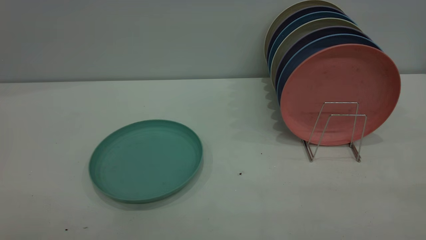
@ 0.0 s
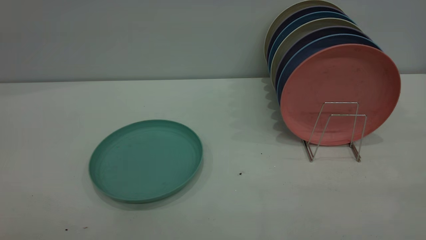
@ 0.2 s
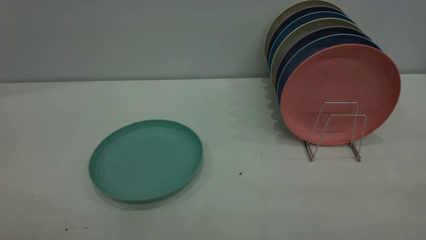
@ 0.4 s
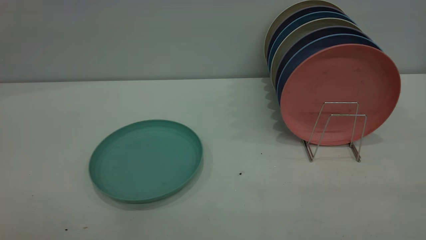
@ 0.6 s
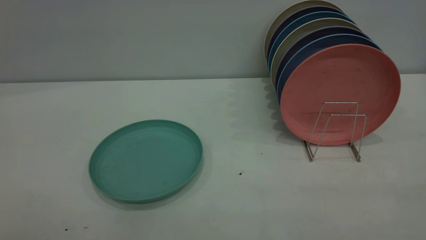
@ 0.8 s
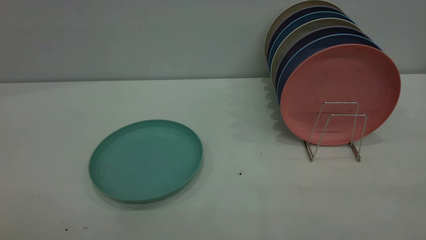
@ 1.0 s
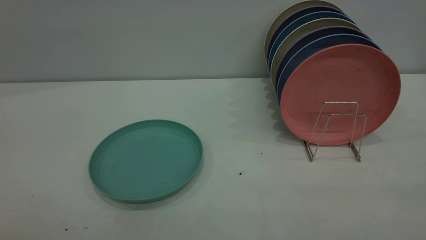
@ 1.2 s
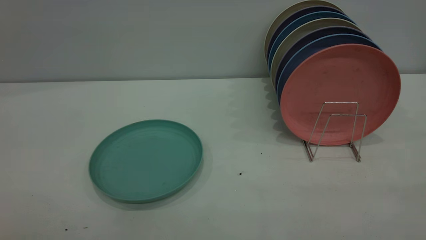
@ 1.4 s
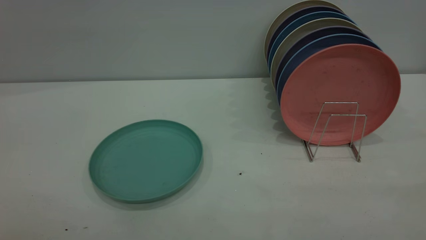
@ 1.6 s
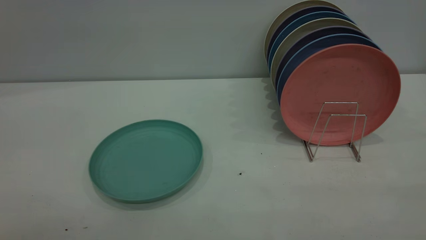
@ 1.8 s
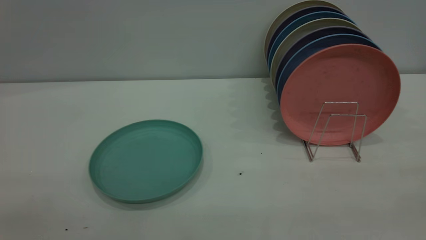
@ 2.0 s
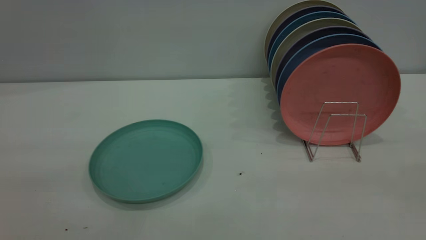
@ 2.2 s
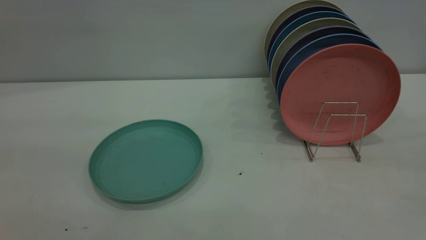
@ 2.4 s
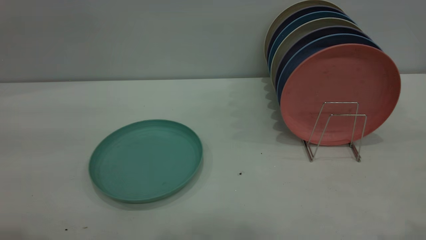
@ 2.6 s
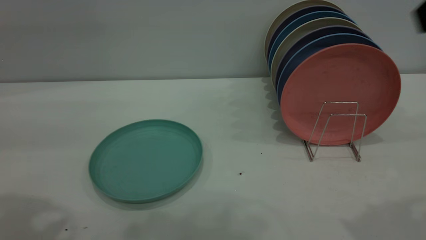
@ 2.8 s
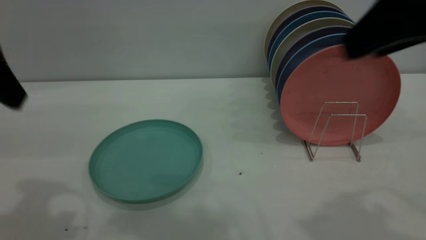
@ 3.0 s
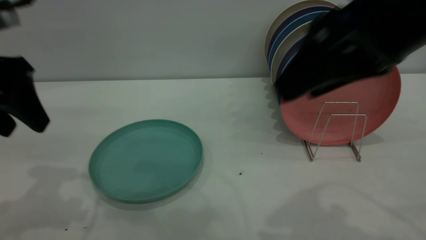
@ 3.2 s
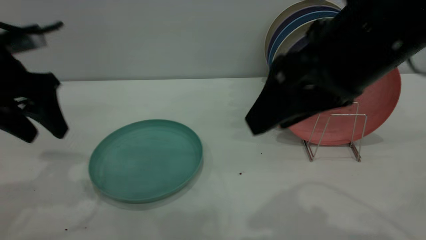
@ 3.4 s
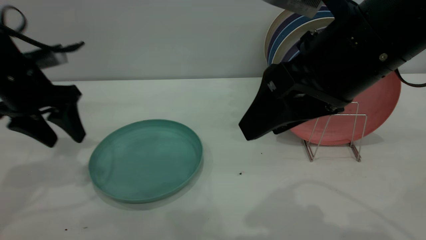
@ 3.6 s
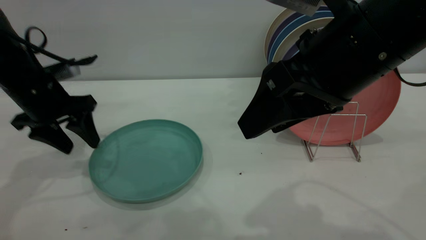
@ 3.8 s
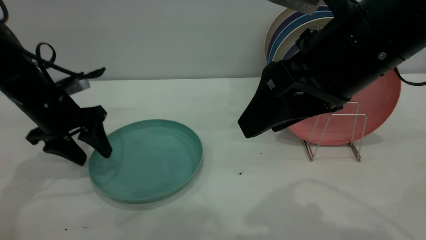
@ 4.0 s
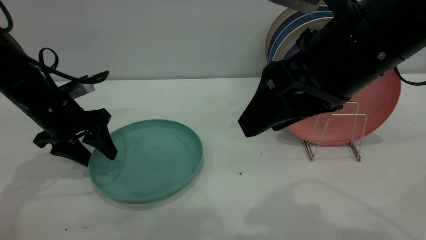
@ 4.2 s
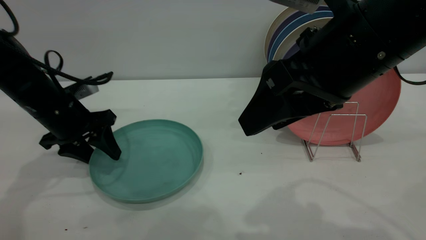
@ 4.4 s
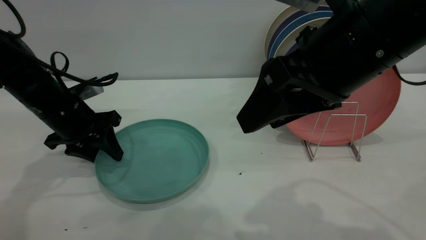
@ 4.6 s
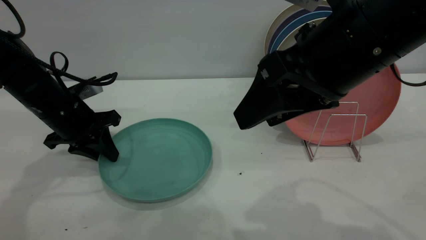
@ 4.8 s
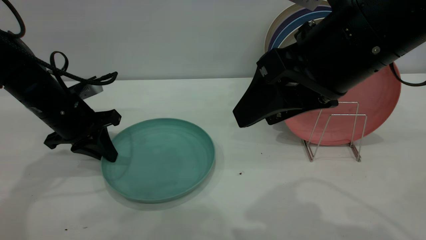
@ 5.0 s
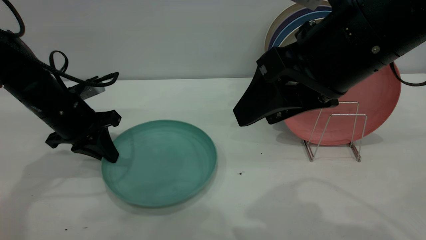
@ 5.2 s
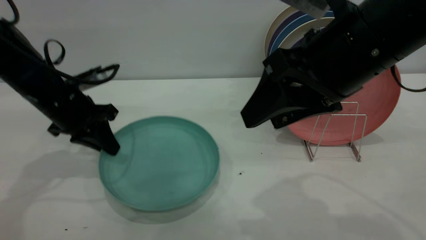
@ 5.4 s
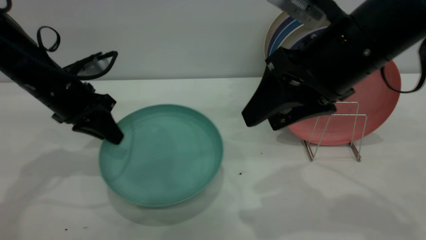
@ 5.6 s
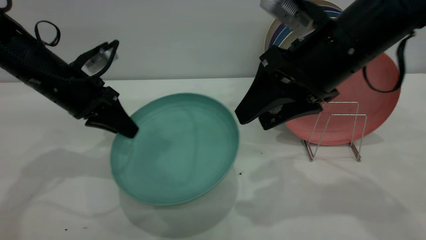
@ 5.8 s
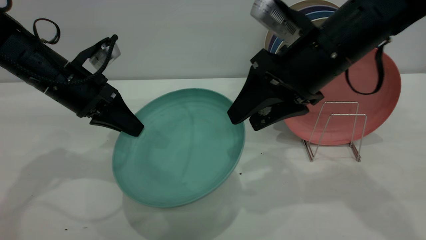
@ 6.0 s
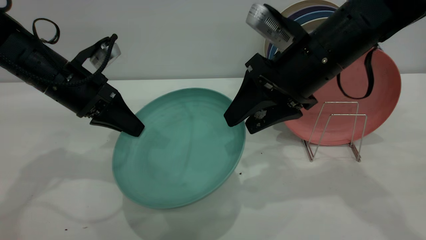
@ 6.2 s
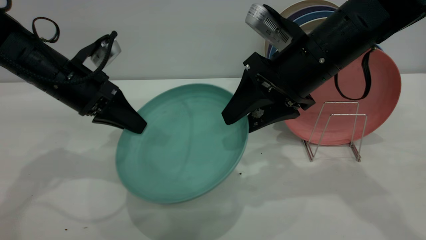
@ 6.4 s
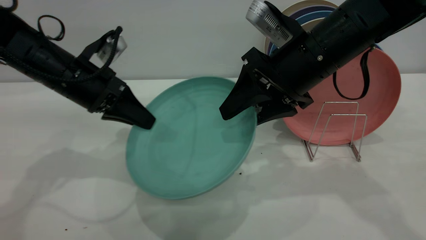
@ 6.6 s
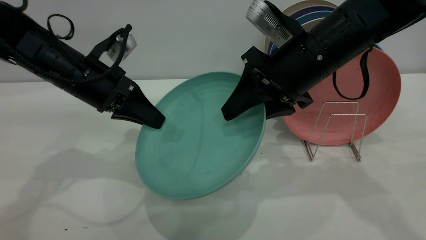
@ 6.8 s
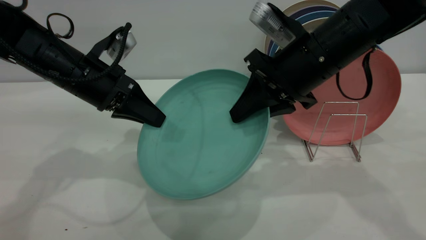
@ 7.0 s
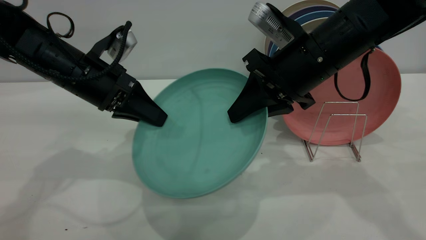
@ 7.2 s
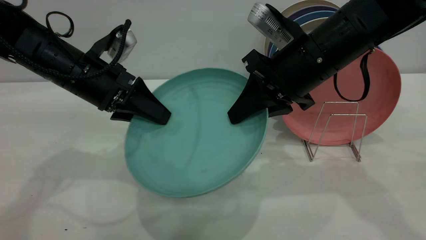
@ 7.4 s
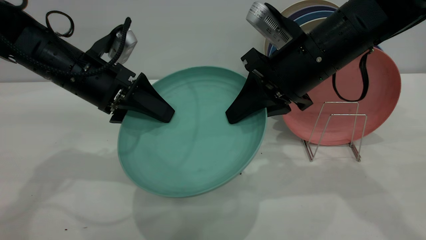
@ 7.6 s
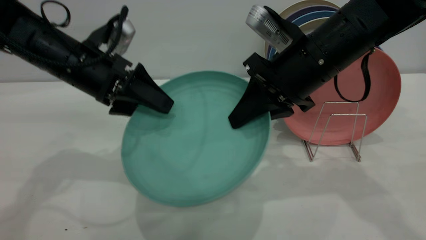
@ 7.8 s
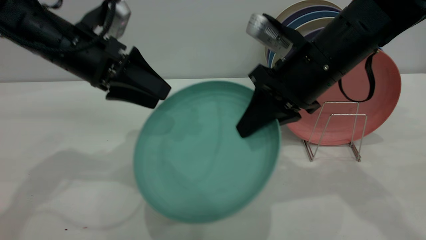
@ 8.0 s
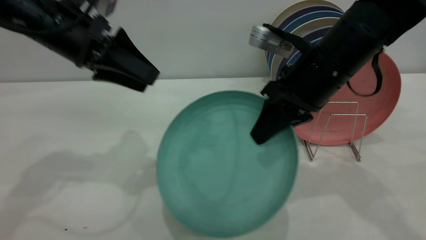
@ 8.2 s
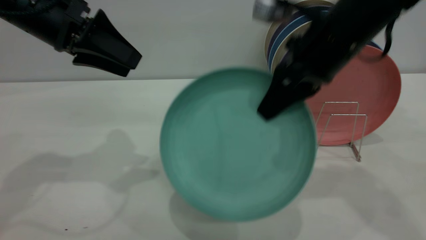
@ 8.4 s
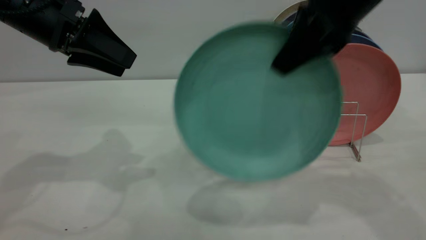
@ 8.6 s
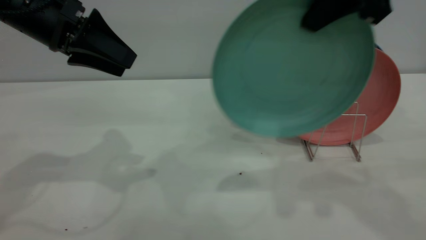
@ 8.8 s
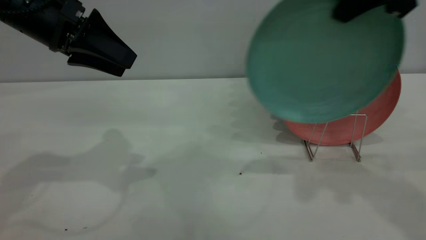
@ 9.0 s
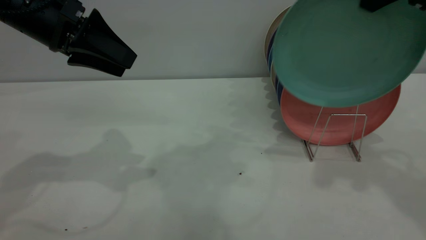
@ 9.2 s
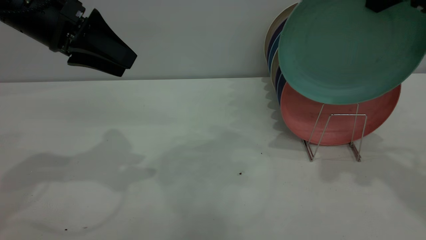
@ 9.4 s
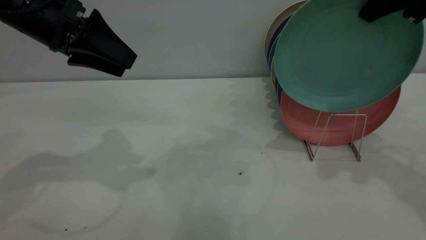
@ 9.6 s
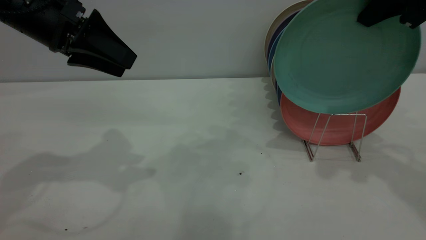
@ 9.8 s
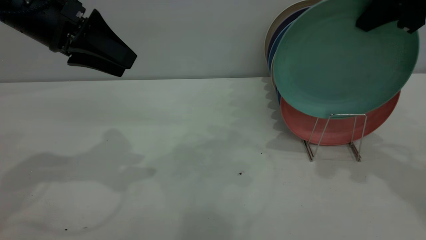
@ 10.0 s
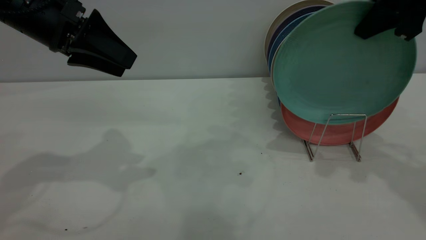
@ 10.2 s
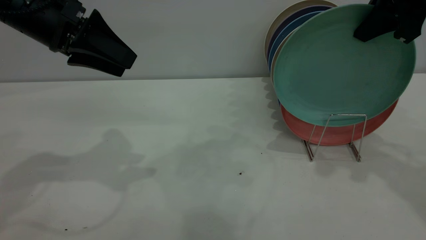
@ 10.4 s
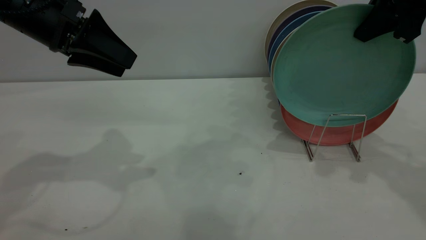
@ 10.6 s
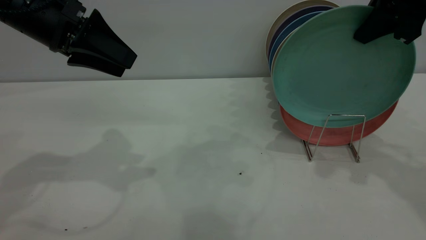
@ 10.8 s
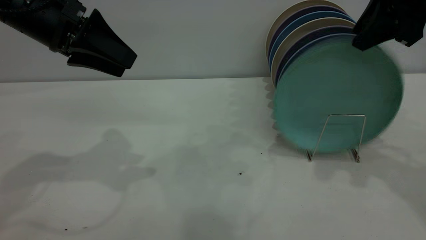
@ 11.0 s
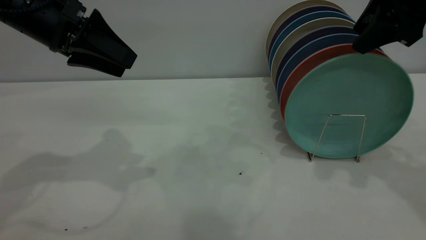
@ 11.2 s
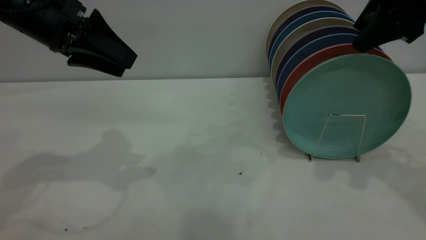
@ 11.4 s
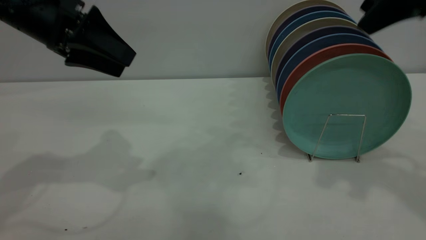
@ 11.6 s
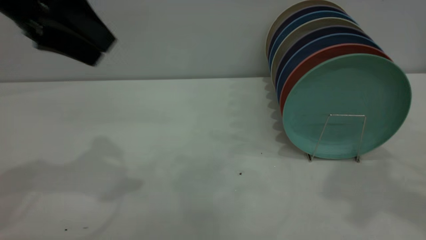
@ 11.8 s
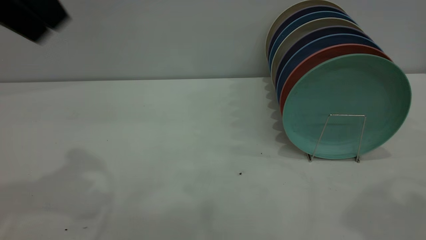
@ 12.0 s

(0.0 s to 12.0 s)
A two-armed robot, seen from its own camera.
Task of the whole recording: the left gripper grasp the green plate, the left gripper pass the green plate to the right gripper, and the right gripper place the green plate on the plate rack.
Step, 0.0 s - 5.6 s: Pick up the plate with the left gripper.
Step, 5.8 s - 8.0 s: Pass the plate from the left gripper to the right gripper.
Step, 8.2 s - 11.6 s: Place the plate on the shelf.
0.0 s - 1.6 s: Both grippers stay put.
1.6 s - 3.0 s: The left gripper moves forward, approximately 30 cm, while the right gripper goes approximately 25 cm forward and to the left, and opens its fingers.
3.0 s - 4.4 s: The right gripper moves to the left and downward, approximately 10 cm. Meanwhile the left gripper goes about 25 cm downward and forward.
4.4 s - 6.0 s: The left gripper changes place by approximately 5 cm, and closes. Meanwhile the right gripper goes approximately 10 cm forward and downward.
6.0 s - 7.6 s: The left gripper opens its fingers; the right gripper closes up.
7.6 s - 9.0 s: The right gripper shifts roughly 15 cm upward and to the right. Meanwhile the left gripper shifts about 10 cm upward.
9.0 s - 10.4 s: The right gripper moves roughly 5 cm.
10.4 s - 12.0 s: The left gripper is displaced upward and backward by approximately 15 cm. The right gripper heads backward and upward, covering approximately 20 cm, and opens up.
